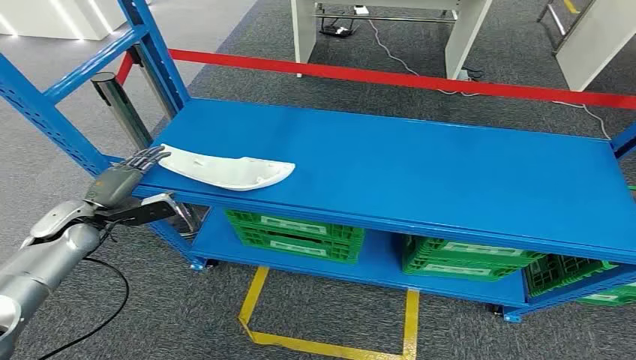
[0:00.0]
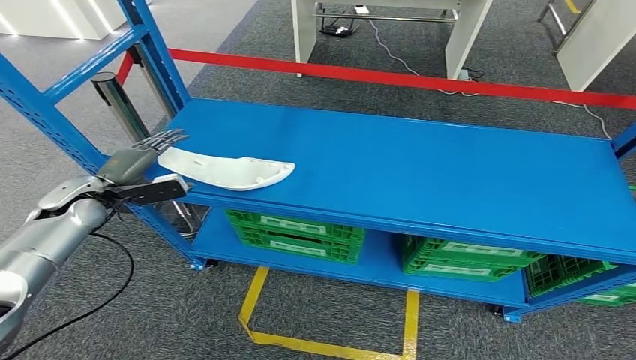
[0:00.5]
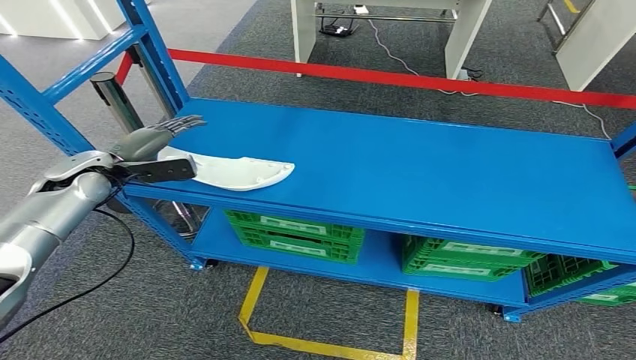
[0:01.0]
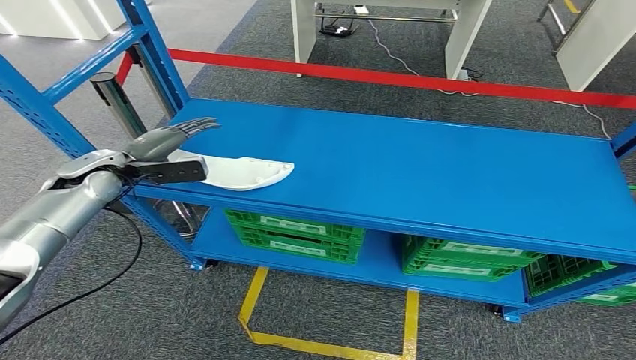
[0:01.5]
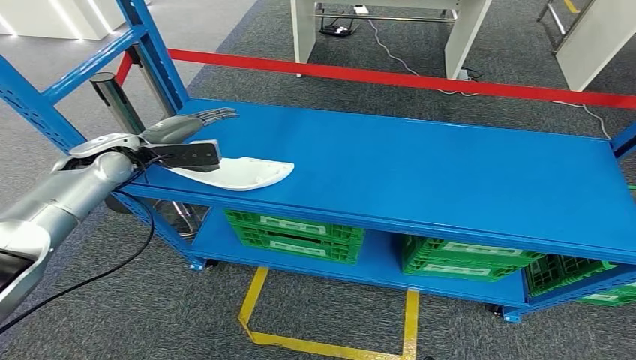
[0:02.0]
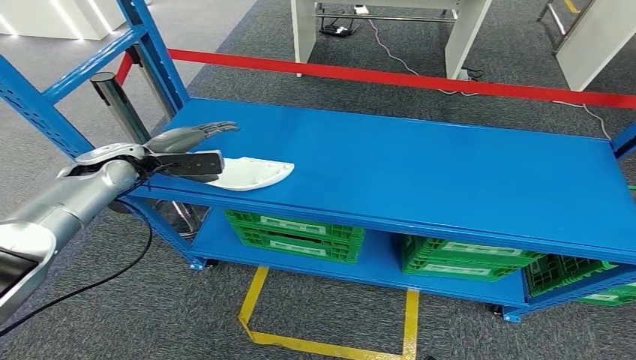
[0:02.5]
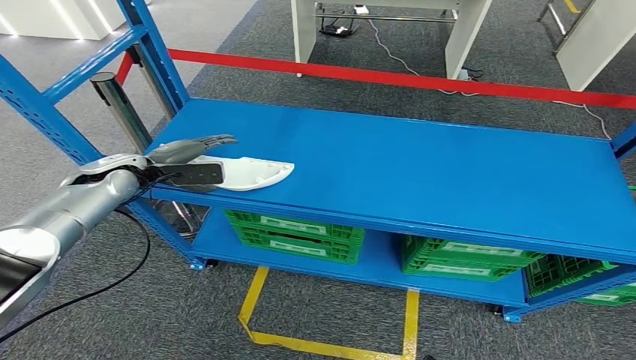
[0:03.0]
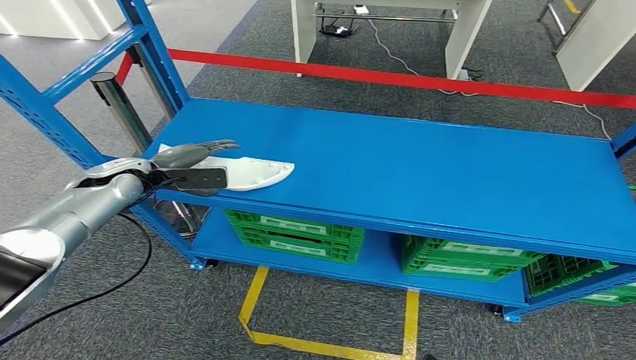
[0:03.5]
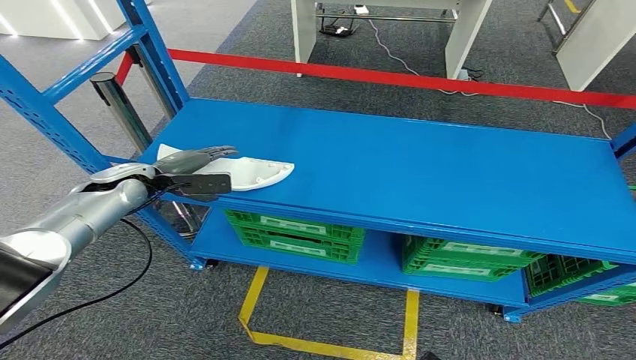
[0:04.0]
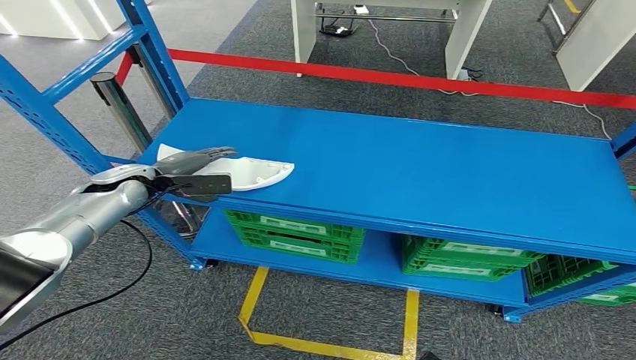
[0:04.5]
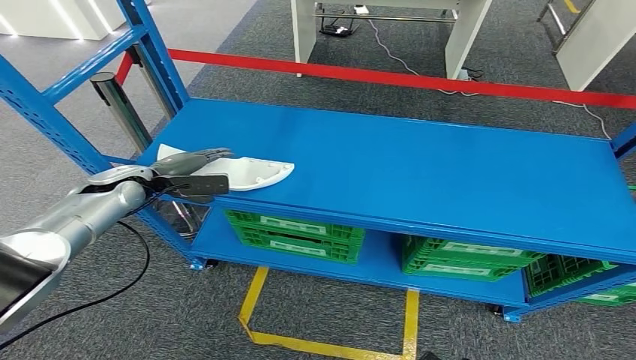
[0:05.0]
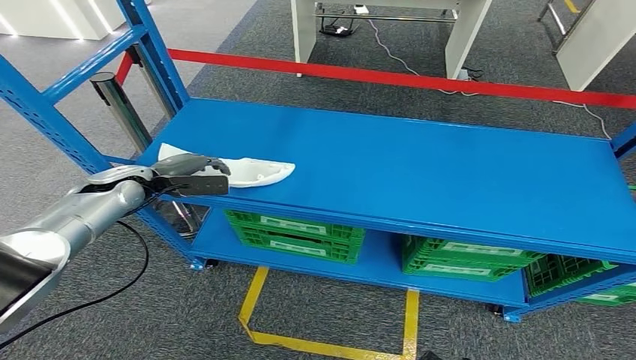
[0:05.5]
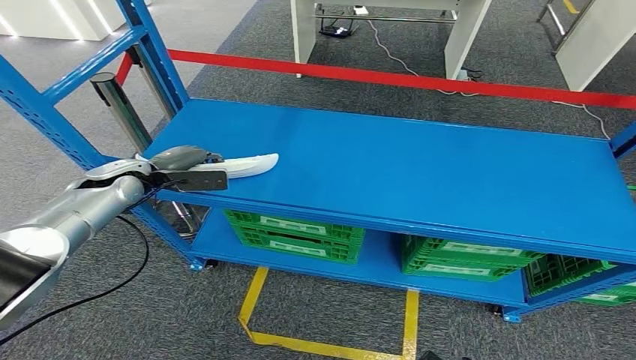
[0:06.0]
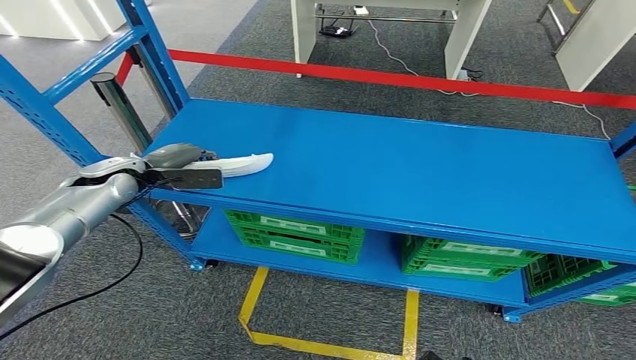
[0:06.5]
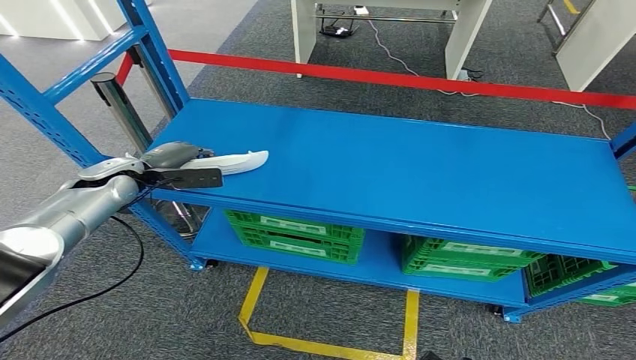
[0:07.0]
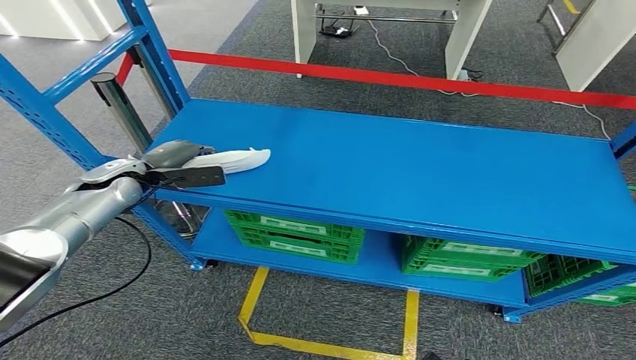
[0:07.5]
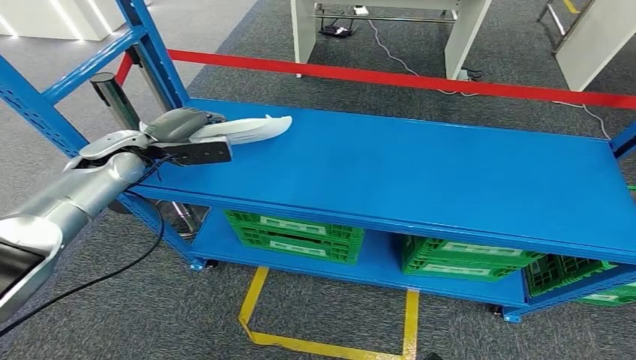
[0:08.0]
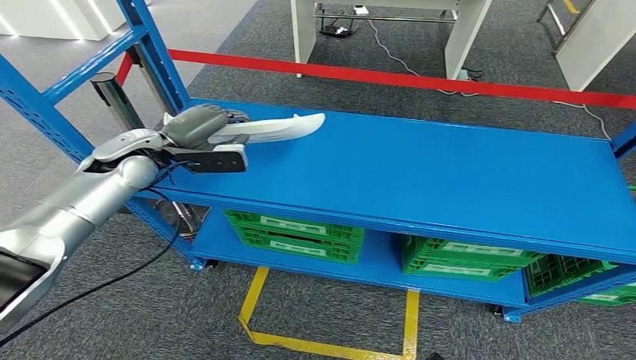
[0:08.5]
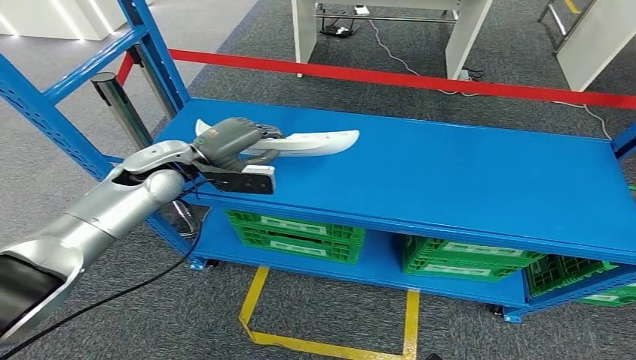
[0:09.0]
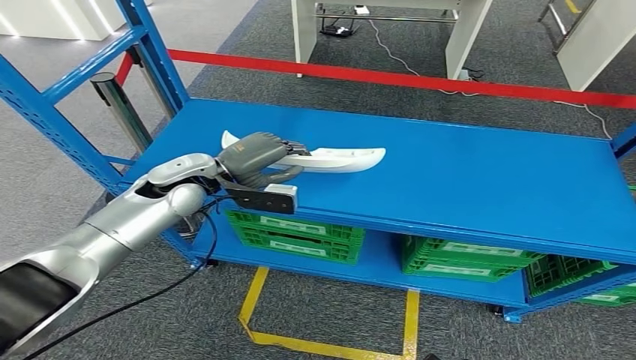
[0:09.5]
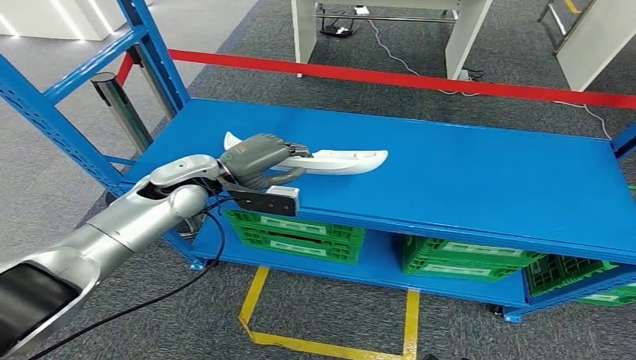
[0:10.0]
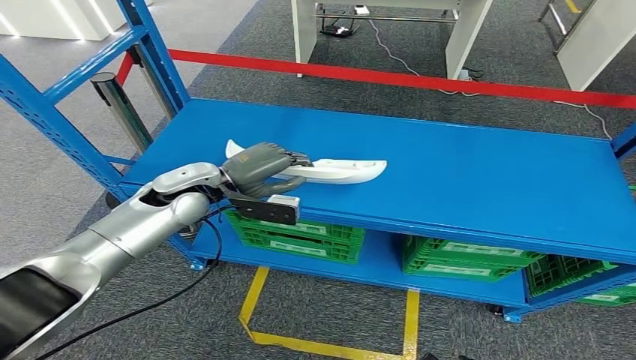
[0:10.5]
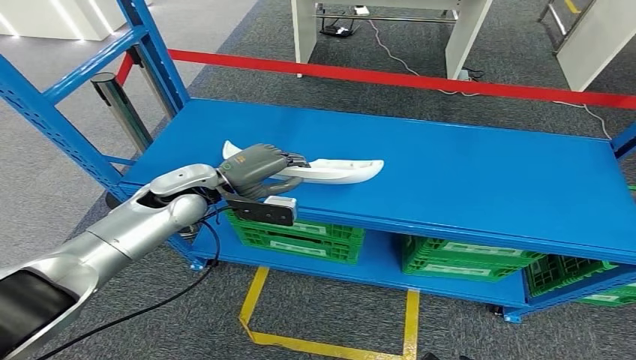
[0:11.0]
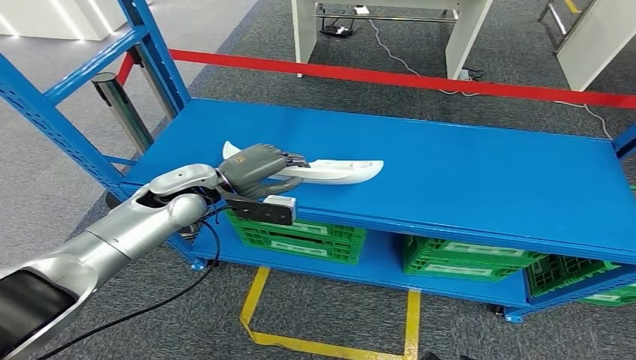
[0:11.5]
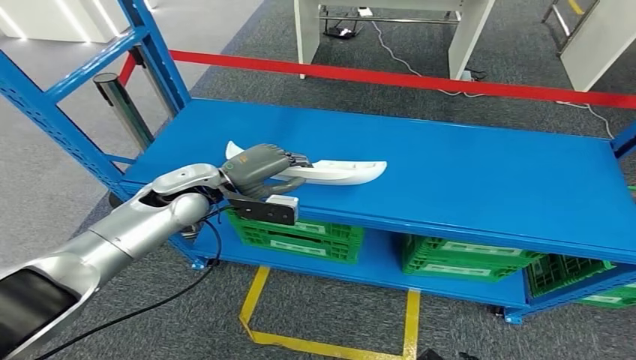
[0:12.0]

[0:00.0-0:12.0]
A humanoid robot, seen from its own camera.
0:02.0 to 0:04.0: The left hand heads downward, covering about 5 cm.
0:04.0 to 0:06.0: The two hands keep their place.
0:06.0 to 0:08.0: The left hand goes roughly 5 cm upward.
0:08.0 to 0:10.0: The left hand shifts roughly 15 cm to the right and backward.
0:10.0 to 0:12.0: There are only small adjustments of the hands.

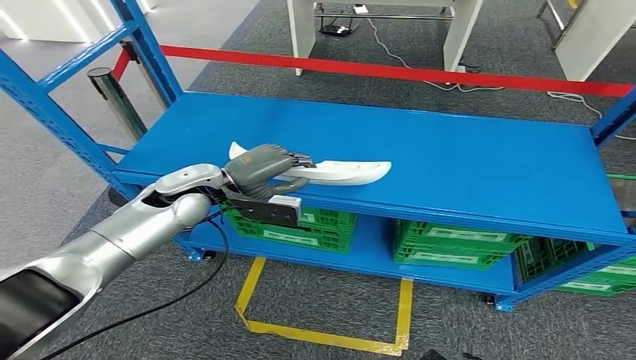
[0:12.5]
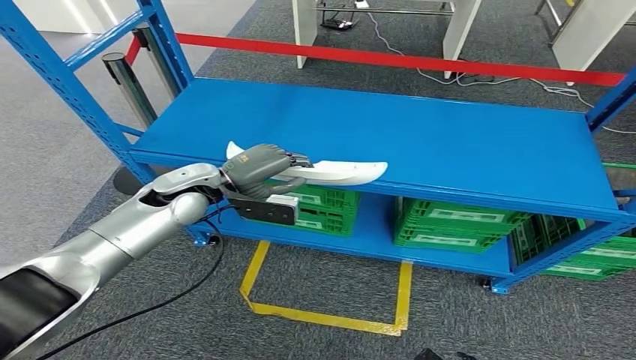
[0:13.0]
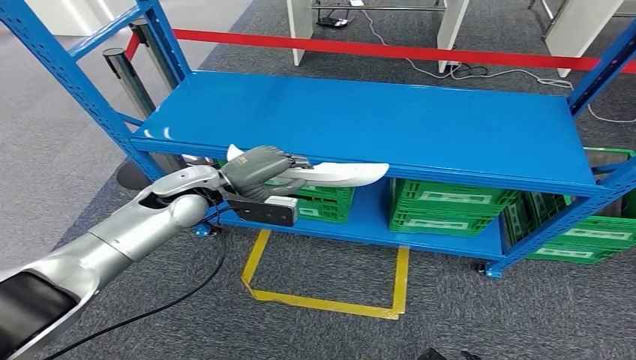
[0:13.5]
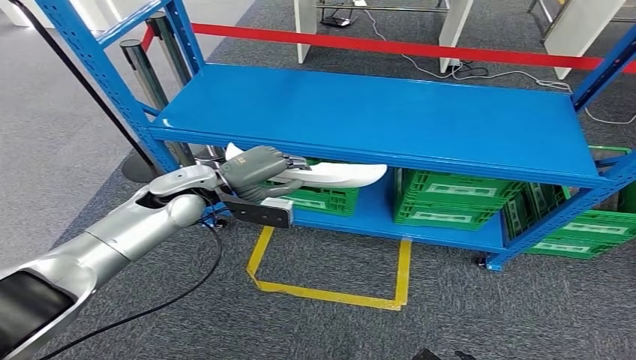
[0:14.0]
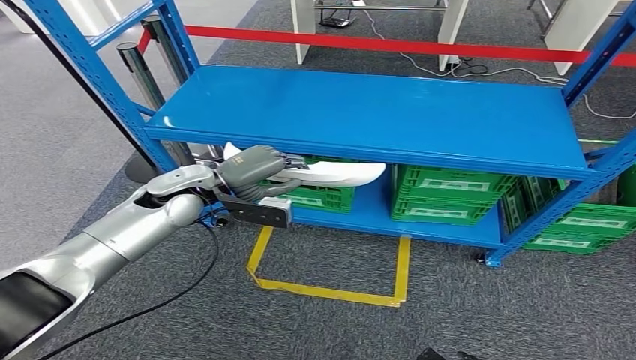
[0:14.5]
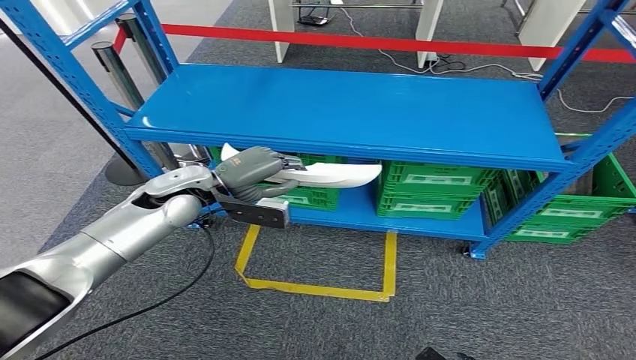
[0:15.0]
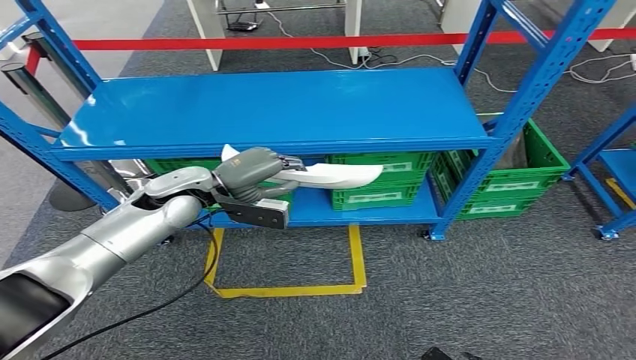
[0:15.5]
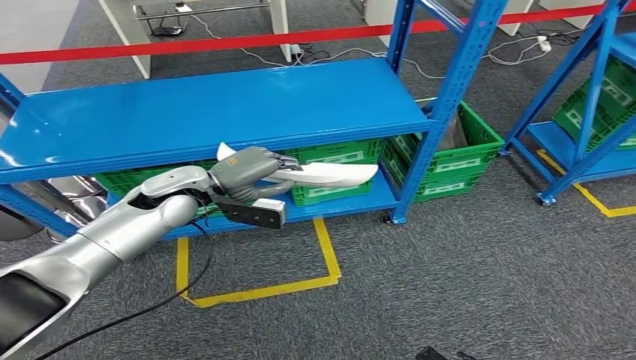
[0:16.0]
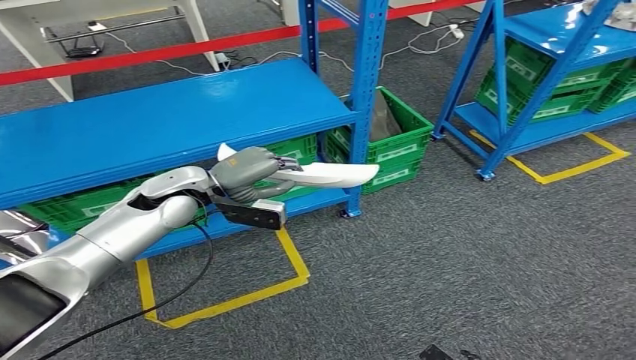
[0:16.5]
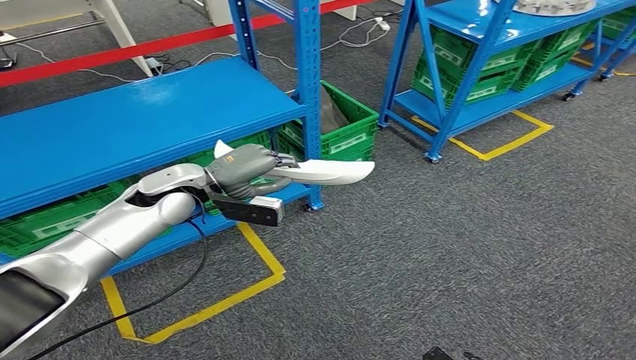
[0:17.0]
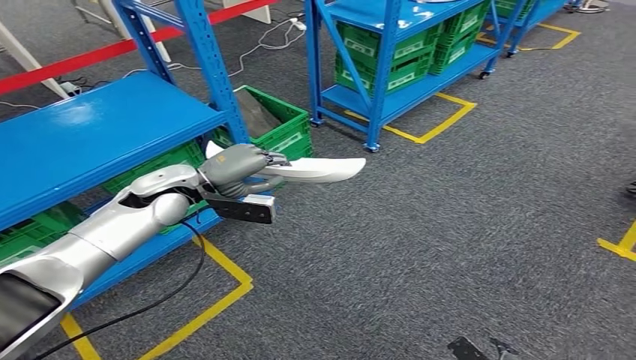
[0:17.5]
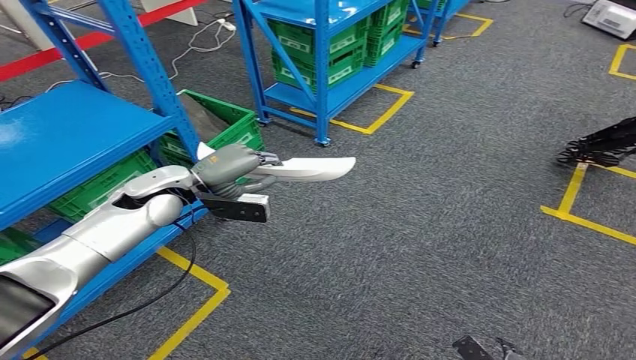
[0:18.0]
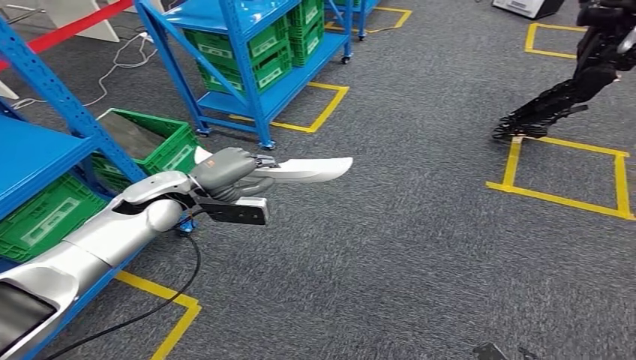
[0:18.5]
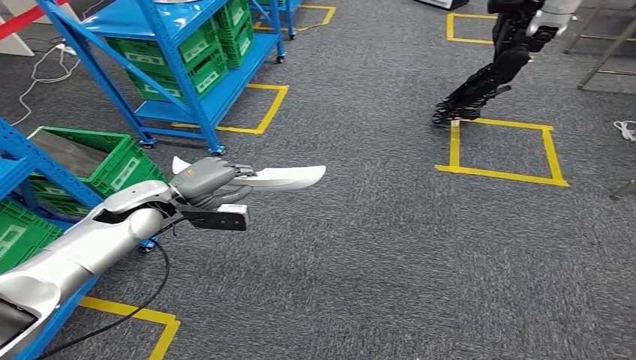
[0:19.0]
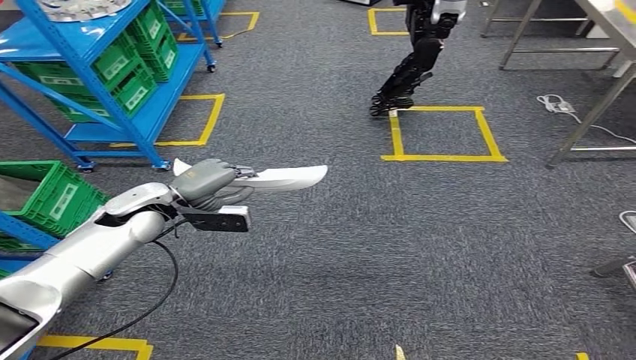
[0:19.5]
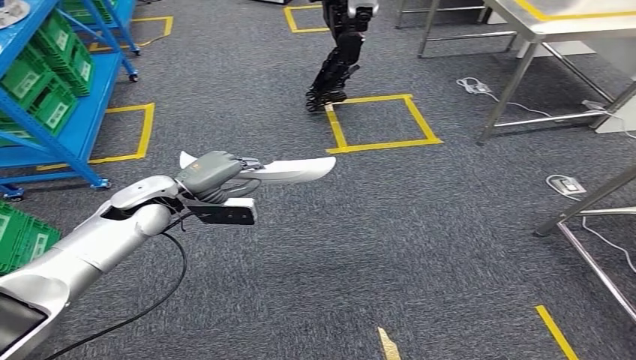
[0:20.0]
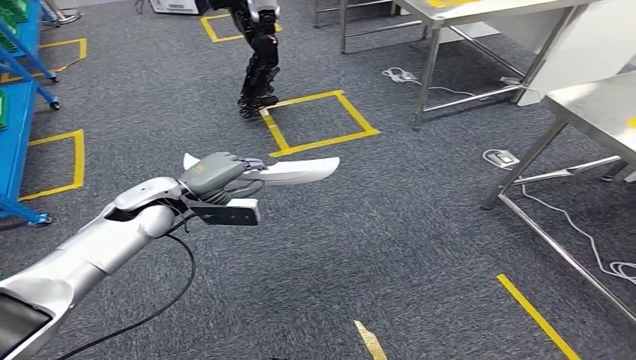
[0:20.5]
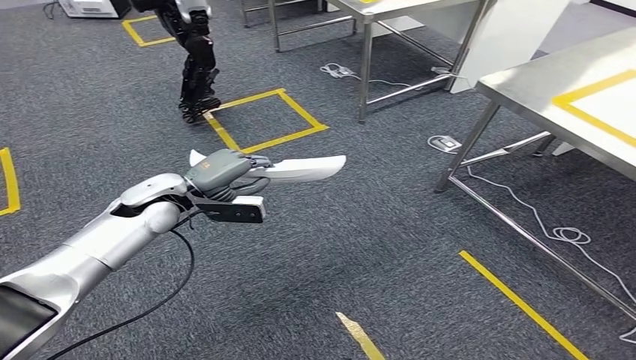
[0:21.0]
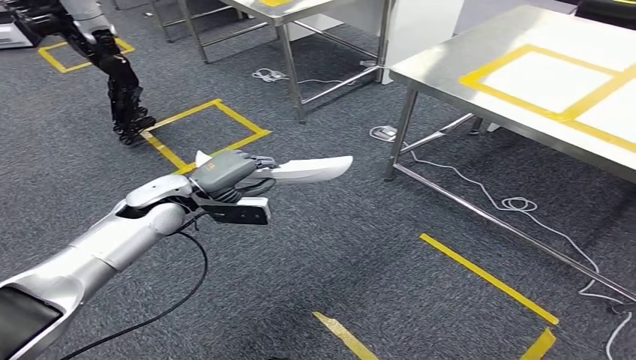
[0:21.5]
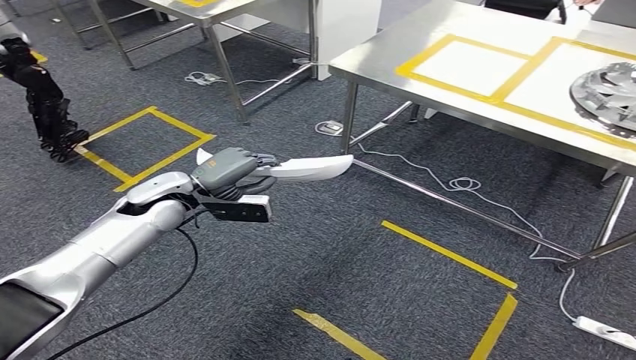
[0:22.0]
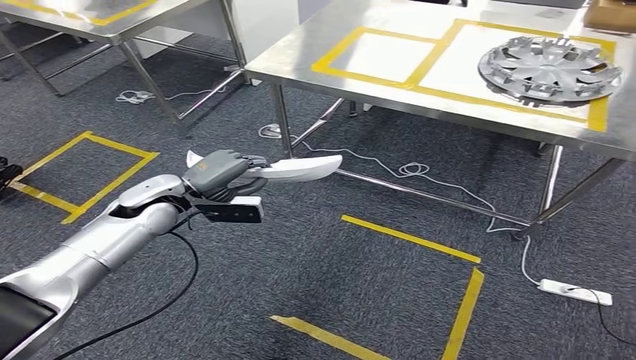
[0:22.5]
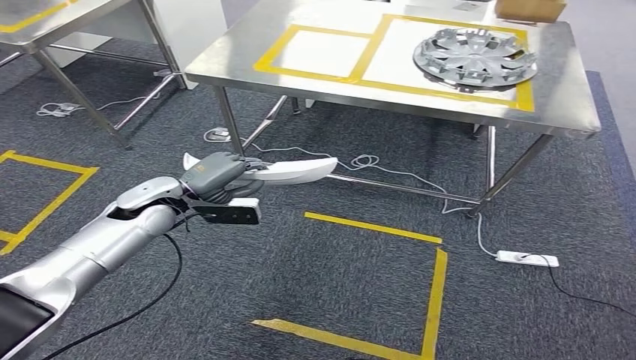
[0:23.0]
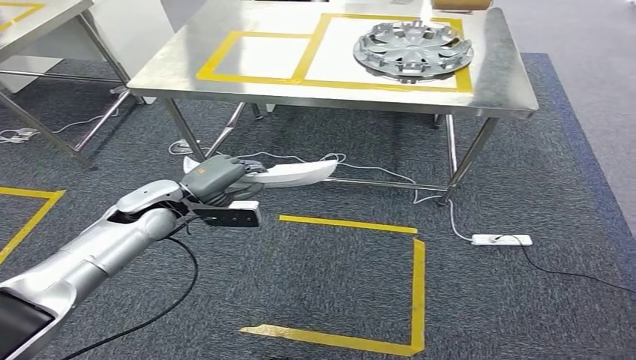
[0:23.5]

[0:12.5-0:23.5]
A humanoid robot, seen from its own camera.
Step, 0:12.5 to 0:18.0: Pick up the small component from the shelf.
